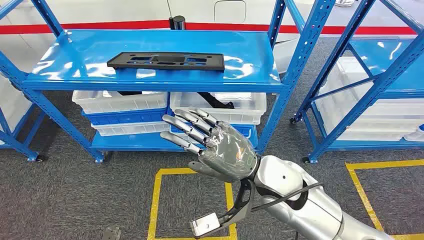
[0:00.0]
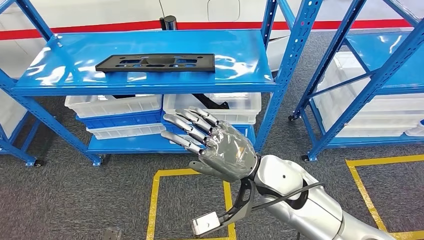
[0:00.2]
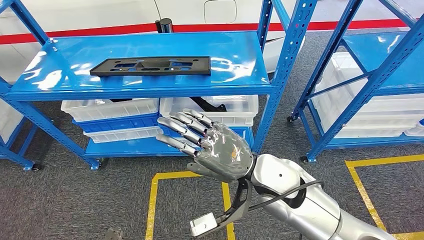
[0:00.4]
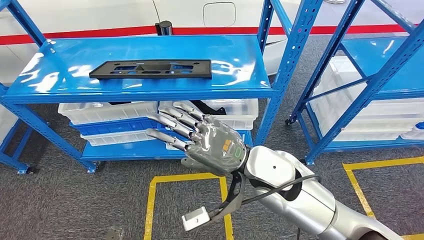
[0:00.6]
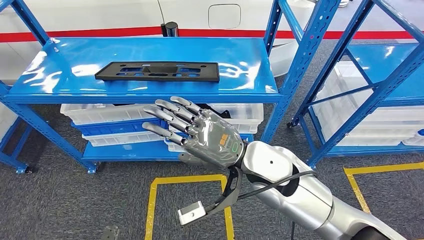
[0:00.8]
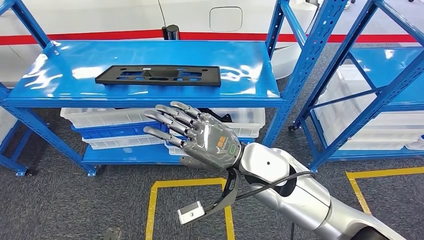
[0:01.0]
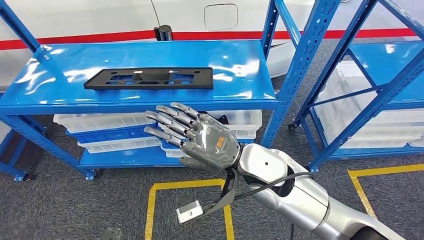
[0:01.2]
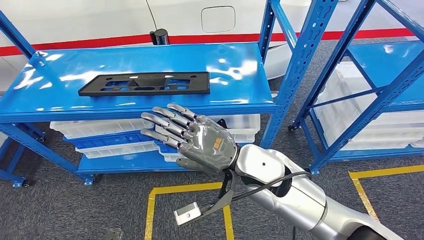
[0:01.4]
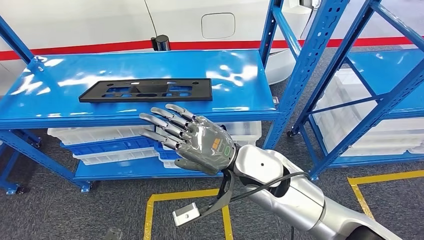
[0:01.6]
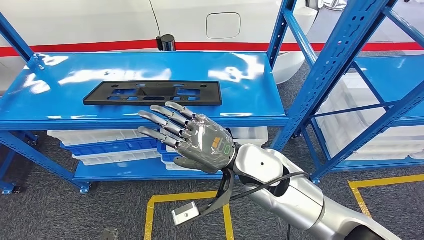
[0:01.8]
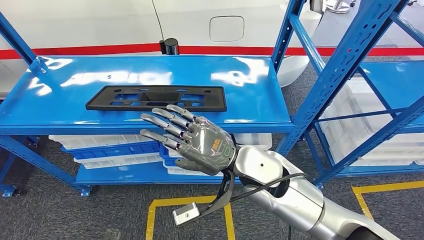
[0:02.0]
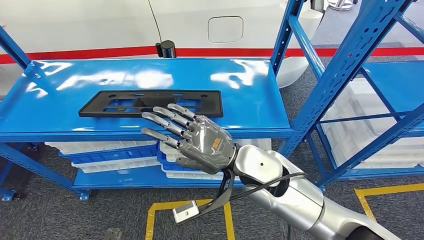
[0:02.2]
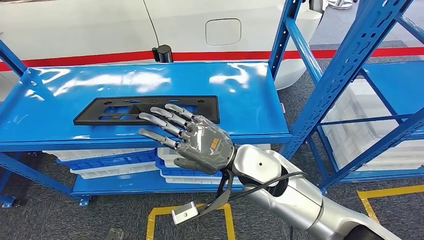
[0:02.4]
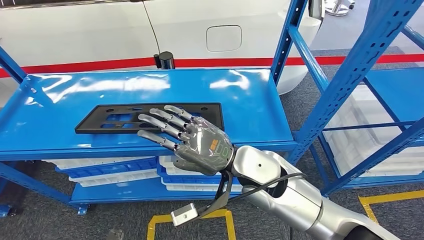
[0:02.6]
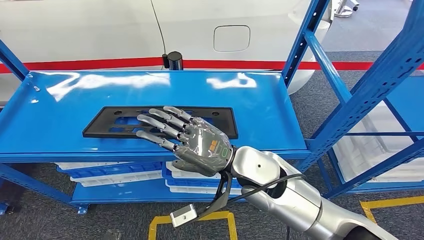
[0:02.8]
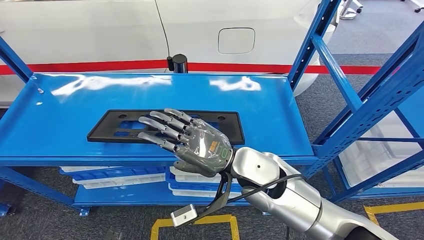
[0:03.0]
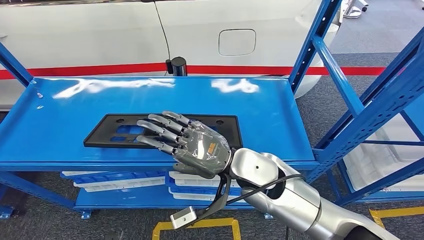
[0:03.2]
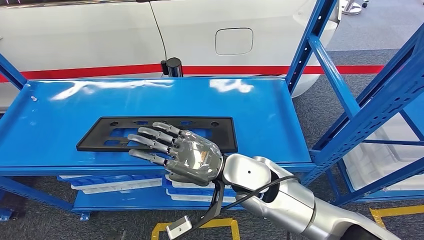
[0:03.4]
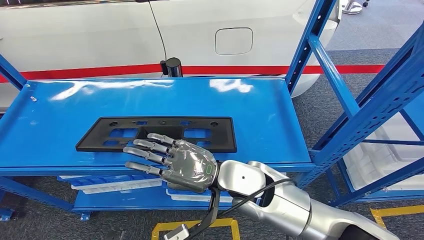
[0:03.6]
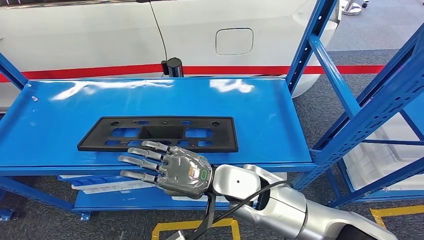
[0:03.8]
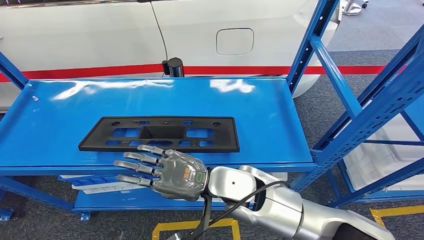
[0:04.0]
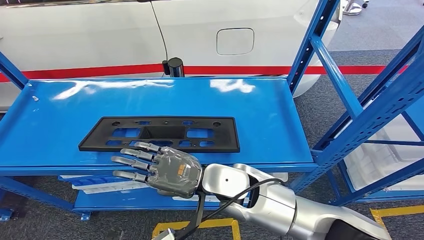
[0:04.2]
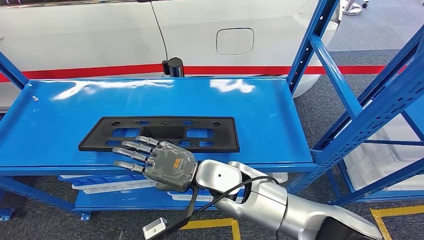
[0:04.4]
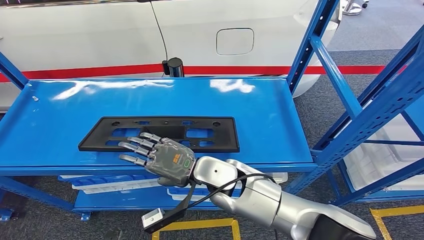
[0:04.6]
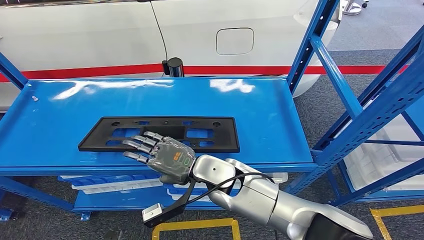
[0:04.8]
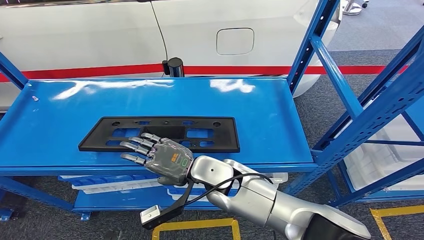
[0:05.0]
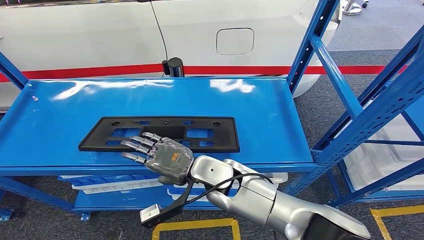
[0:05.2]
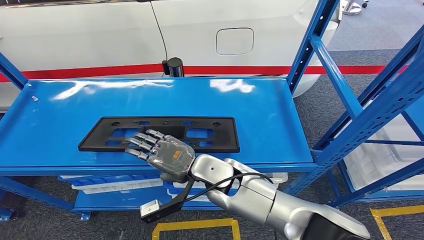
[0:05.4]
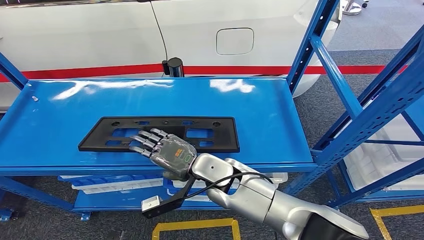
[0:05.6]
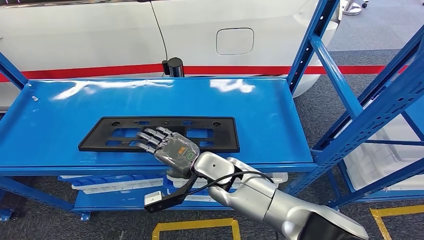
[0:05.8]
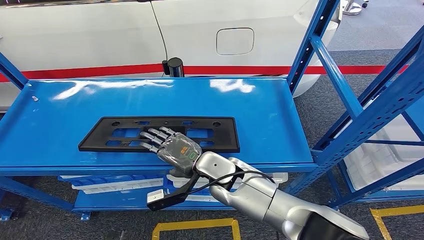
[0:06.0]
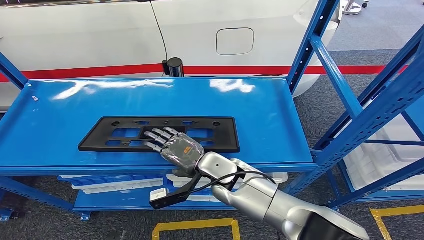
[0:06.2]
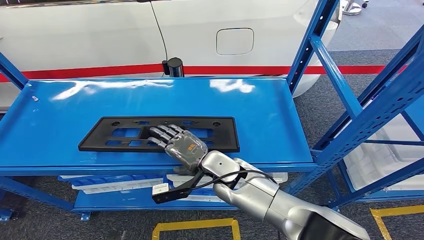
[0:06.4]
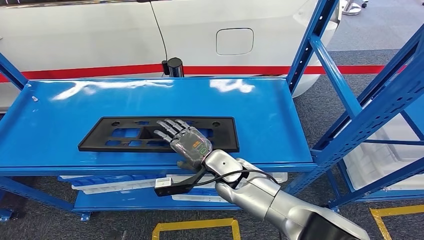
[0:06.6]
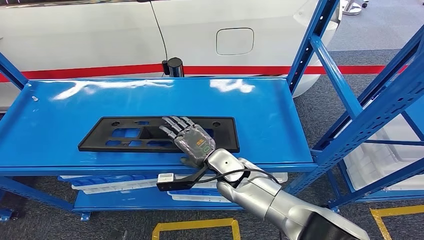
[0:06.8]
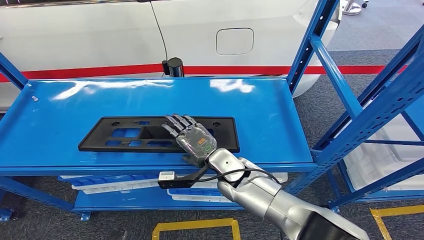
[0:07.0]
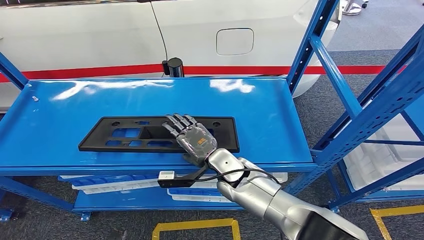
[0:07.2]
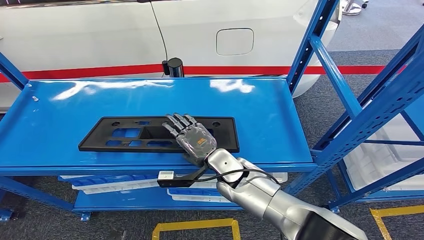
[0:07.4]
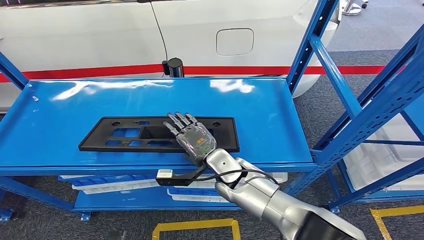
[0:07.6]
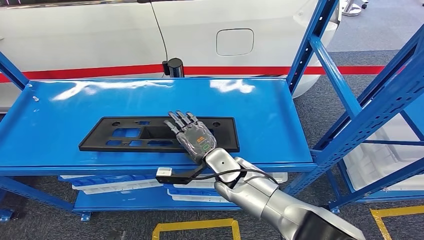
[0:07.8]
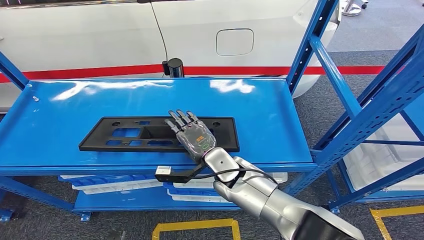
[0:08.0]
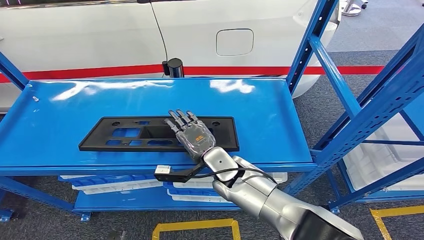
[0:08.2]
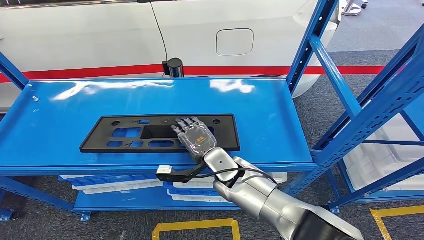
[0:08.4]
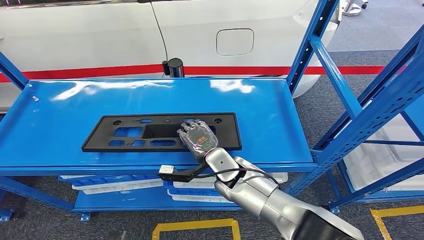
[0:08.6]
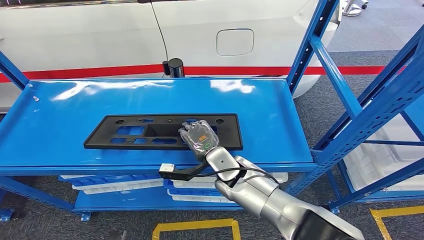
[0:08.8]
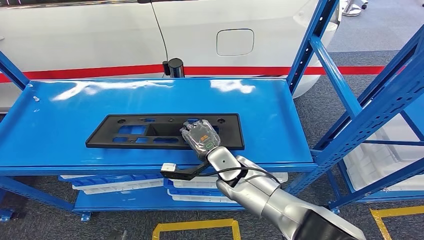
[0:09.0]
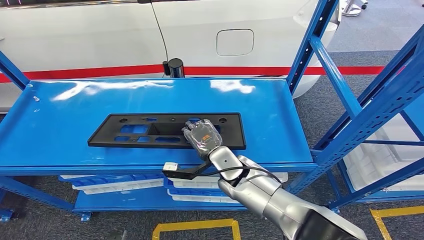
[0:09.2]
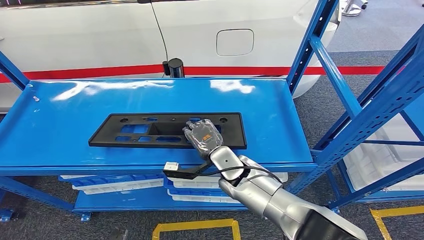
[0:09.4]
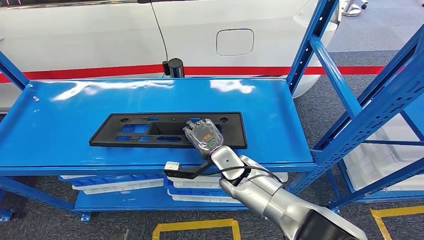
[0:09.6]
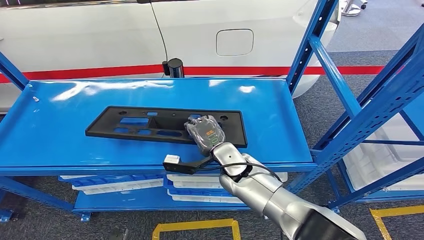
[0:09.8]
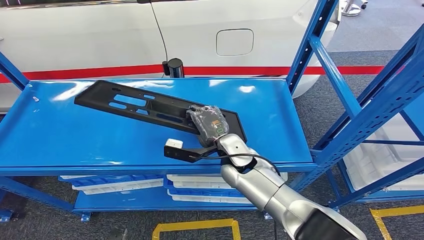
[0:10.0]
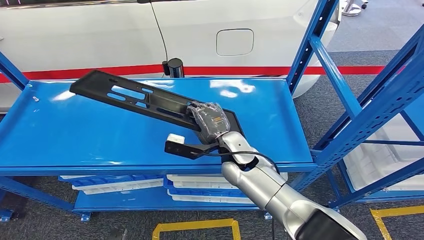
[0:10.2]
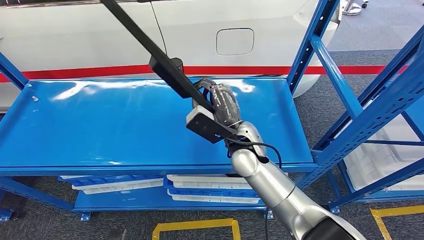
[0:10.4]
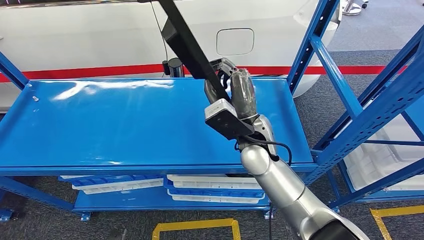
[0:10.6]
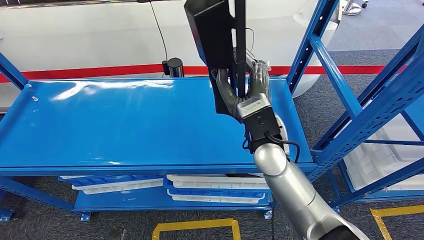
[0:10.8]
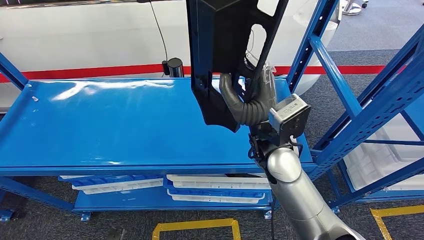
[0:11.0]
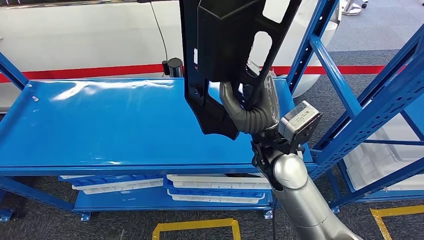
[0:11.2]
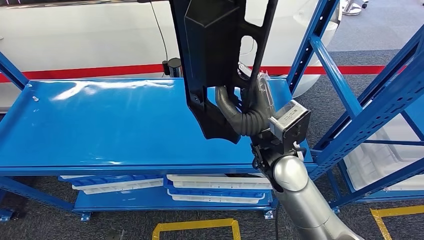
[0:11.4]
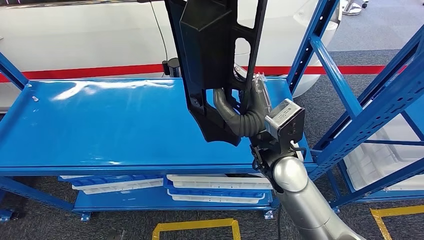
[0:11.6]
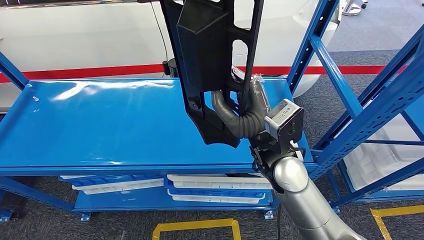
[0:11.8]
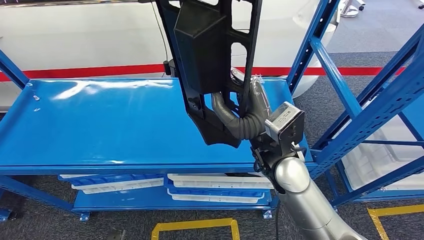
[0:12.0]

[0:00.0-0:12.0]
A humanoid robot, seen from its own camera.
0:04.4 to 0:06.0: The right hand changes place by some 5 cm.
0:06.0 to 0:07.6: The hands move only a little.
0:07.6 to 0:09.0: There are only small adjustments of the hands.
0:09.0 to 0:10.4: The right hand goes some 5 cm upward.

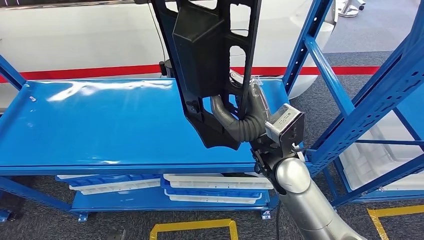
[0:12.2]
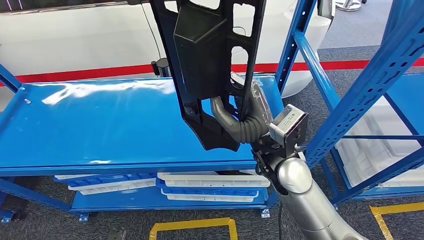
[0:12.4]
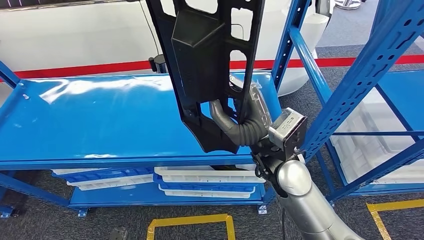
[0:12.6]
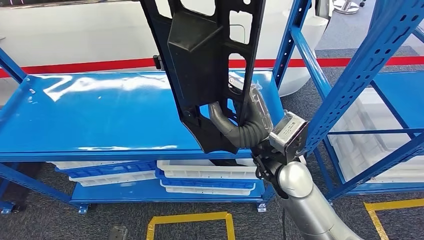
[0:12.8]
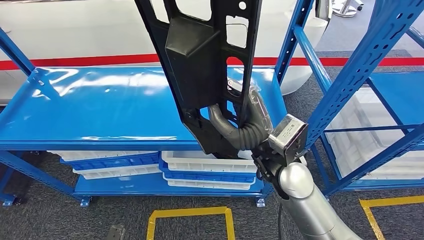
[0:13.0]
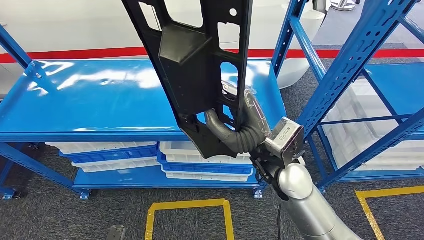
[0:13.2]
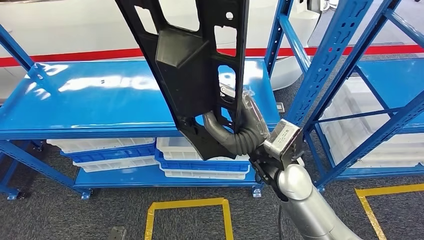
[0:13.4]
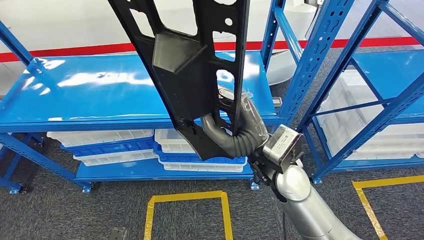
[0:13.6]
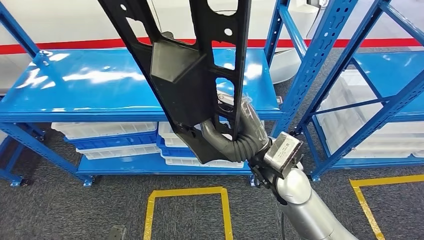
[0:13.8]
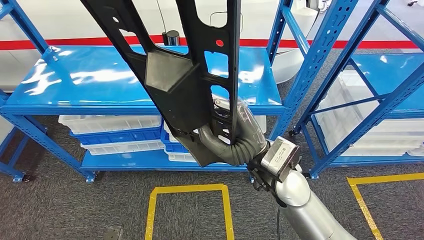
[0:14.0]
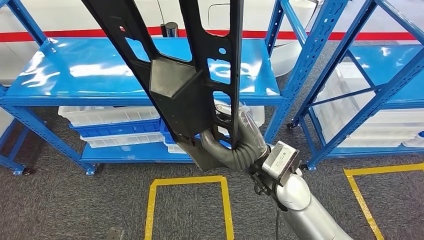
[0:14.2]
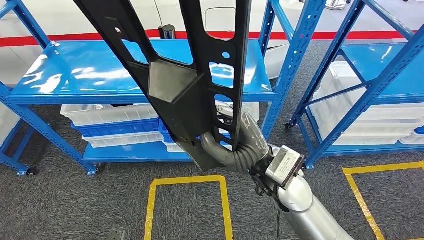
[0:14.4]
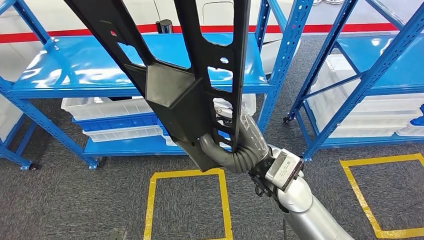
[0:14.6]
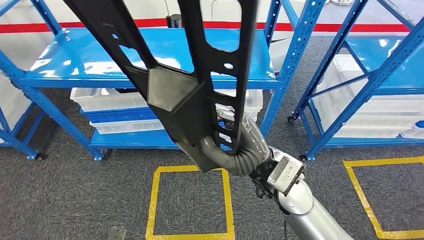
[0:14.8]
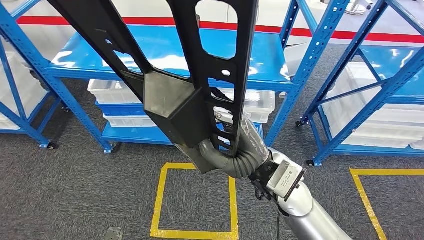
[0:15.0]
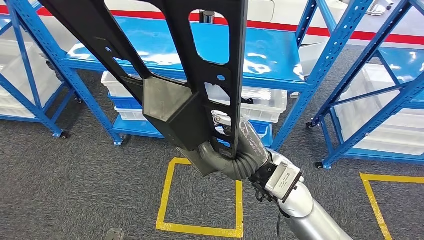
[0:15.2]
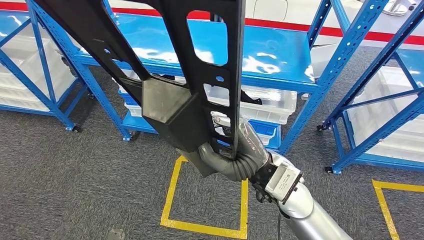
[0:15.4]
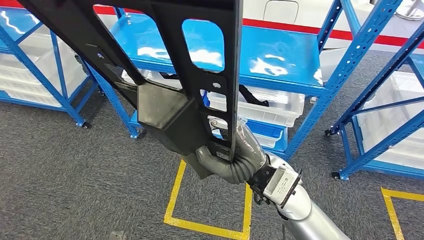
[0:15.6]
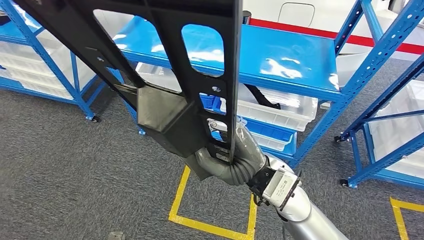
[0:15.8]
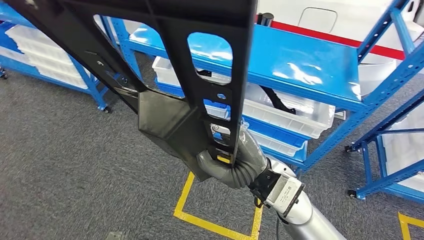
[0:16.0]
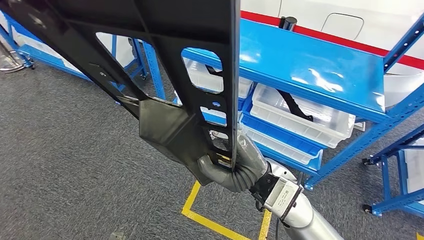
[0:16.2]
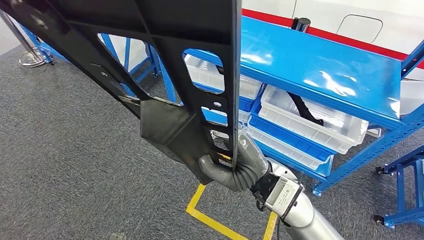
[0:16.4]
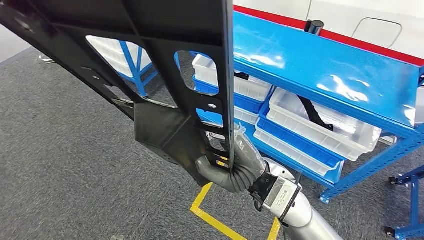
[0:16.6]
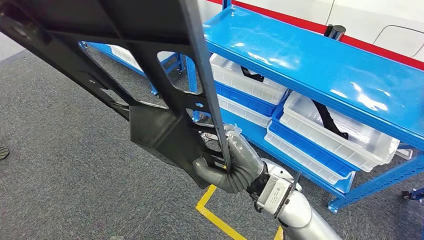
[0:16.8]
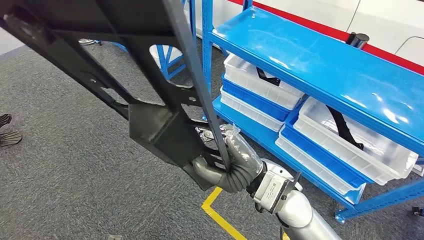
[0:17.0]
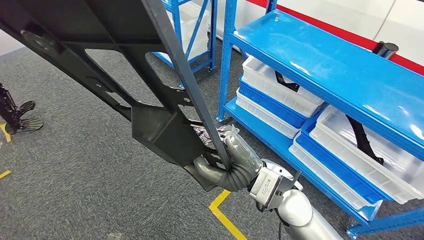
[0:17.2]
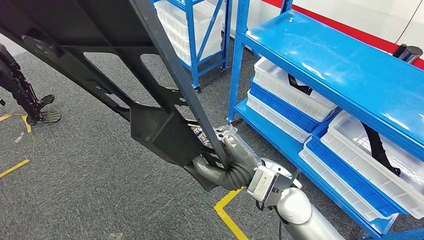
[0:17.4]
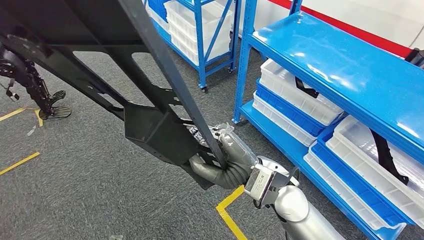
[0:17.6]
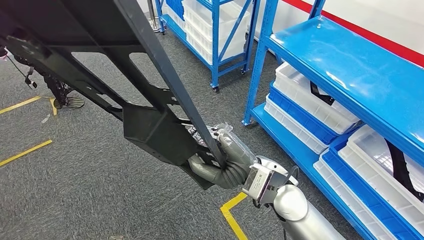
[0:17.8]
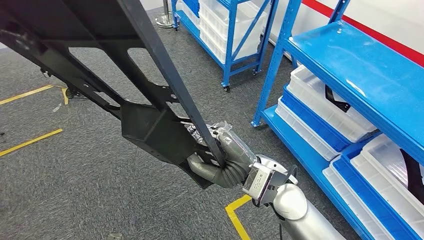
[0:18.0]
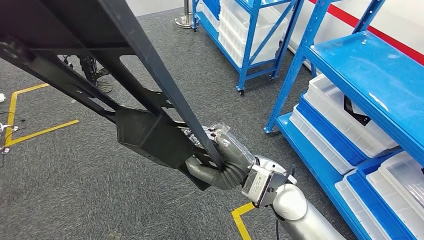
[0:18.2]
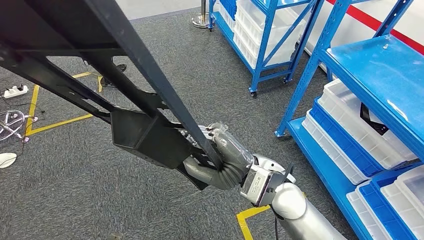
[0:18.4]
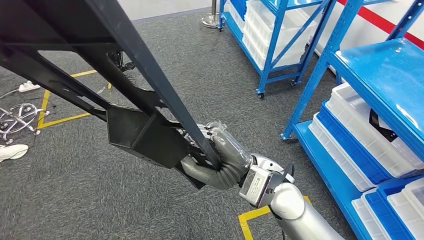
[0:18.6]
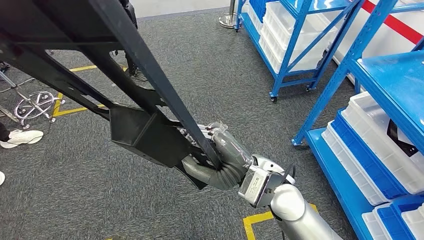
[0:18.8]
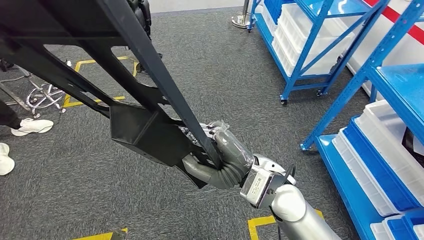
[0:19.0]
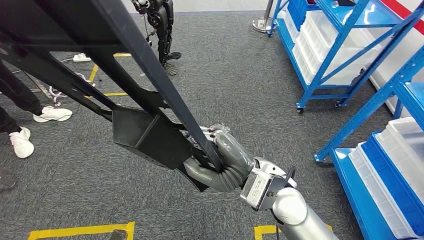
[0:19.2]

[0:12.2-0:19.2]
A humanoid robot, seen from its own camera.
Step, 0:12.2 to 0:14.2: Pick up the large material from the shelf.
